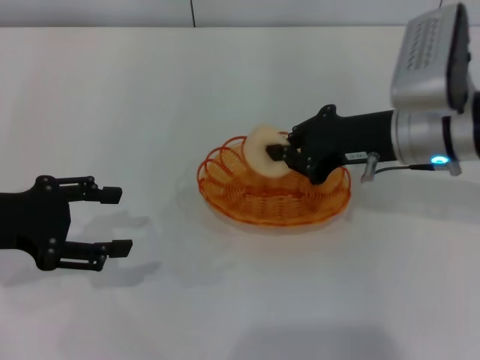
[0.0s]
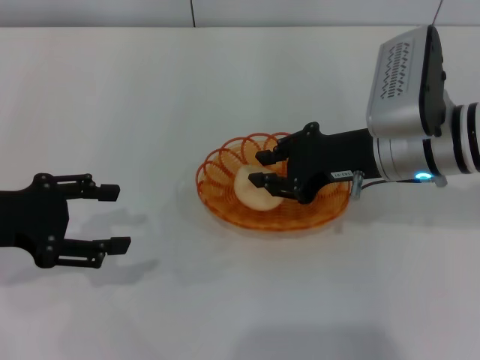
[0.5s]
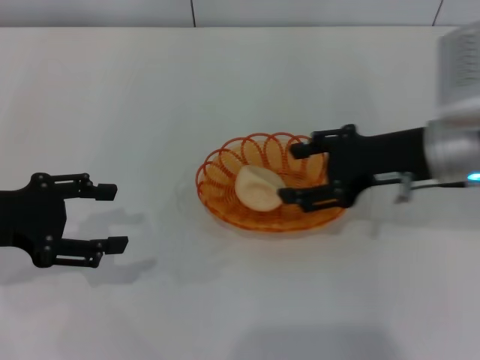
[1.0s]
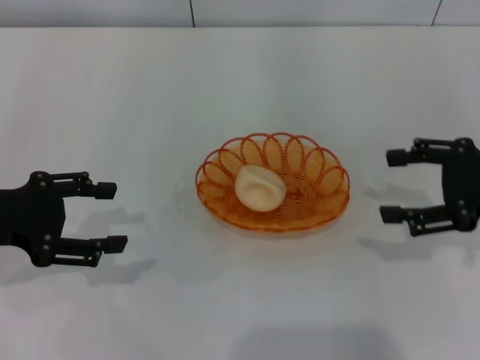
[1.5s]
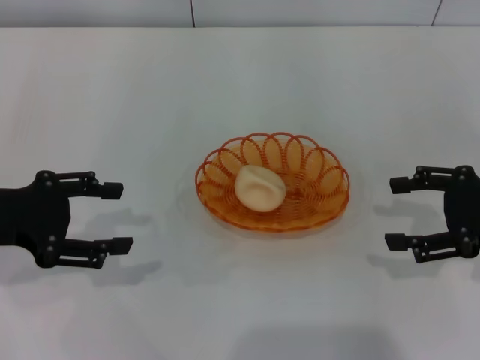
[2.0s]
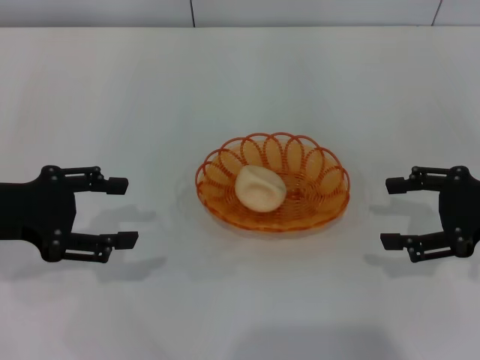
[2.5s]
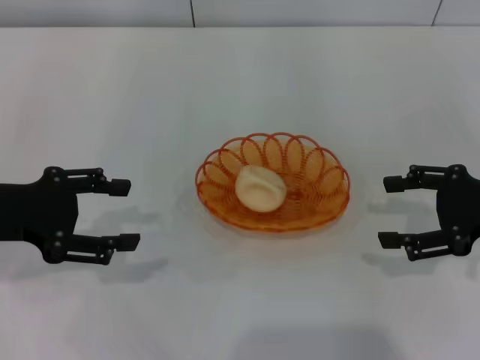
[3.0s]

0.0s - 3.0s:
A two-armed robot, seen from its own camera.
Step, 0.0s - 1.5s: Place the egg yolk pastry into the basket with the right gripper.
0.0s - 1.5s: The right gripper travels to the right and backward by some 15 cm, and opens its fingers.
1.5s - 3.0s: There are only small adjustments of the grippers.
